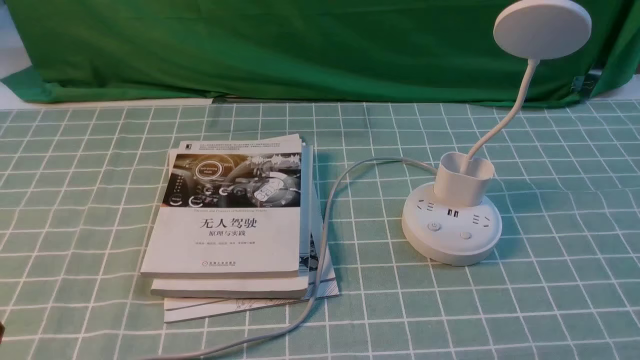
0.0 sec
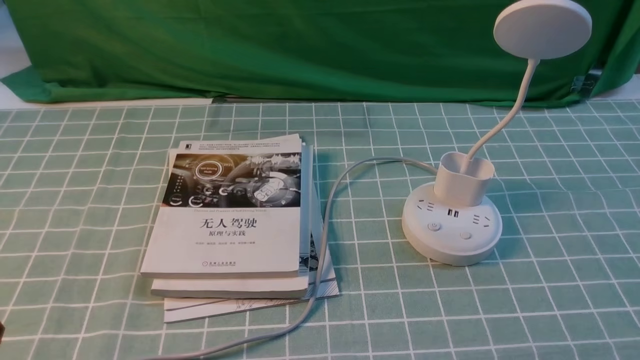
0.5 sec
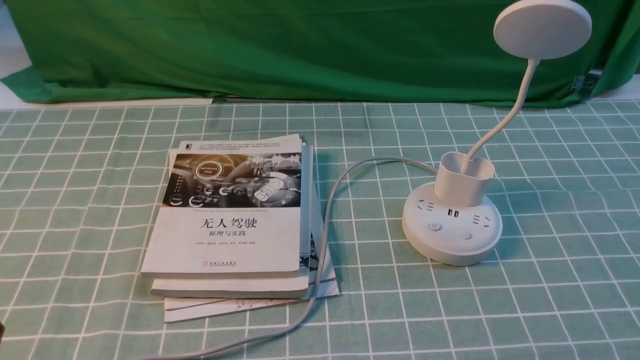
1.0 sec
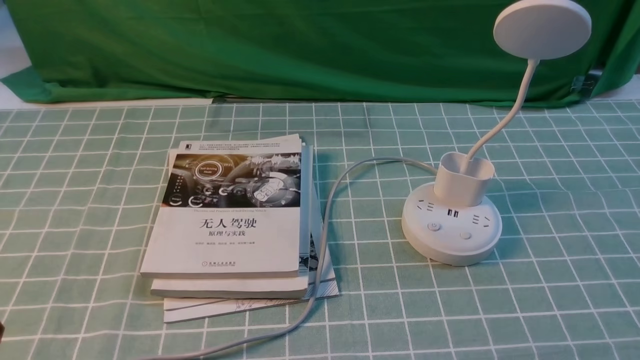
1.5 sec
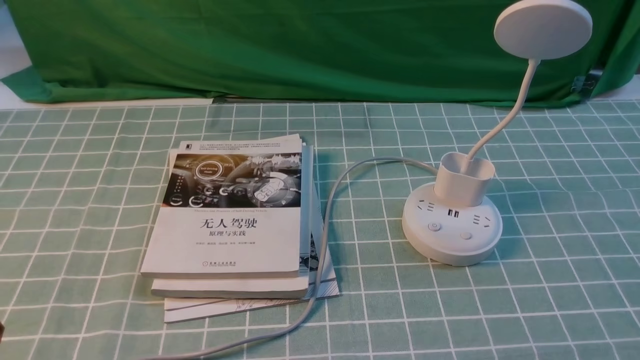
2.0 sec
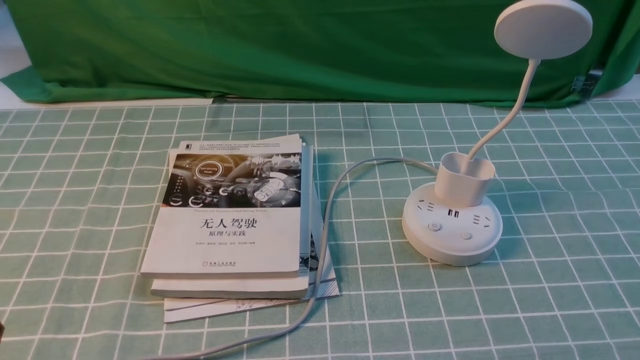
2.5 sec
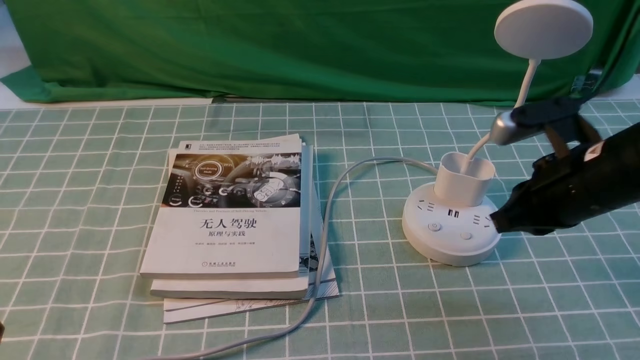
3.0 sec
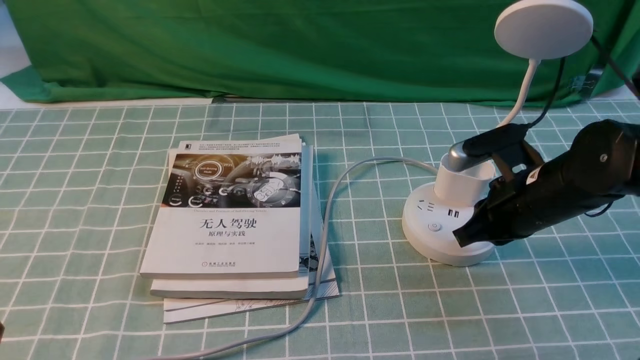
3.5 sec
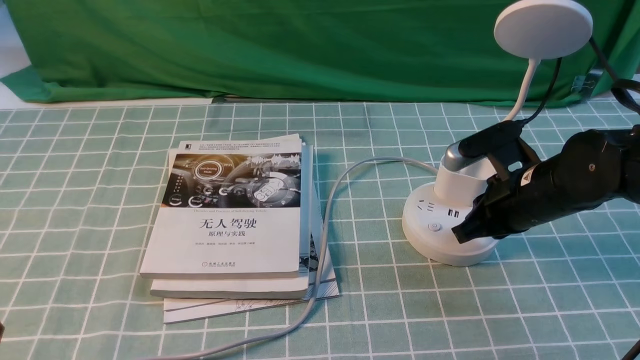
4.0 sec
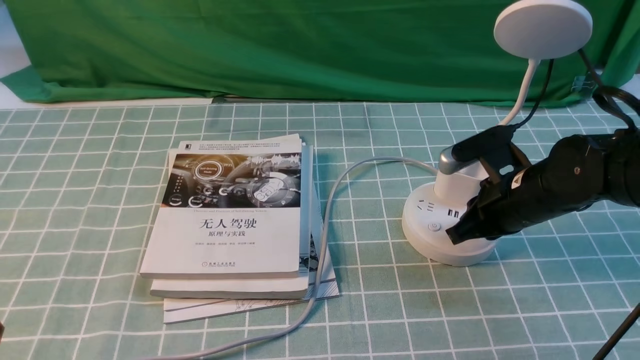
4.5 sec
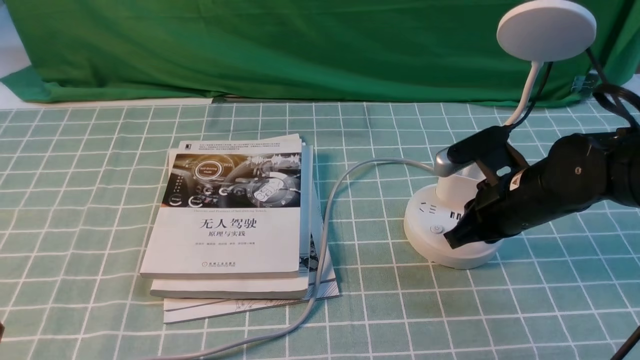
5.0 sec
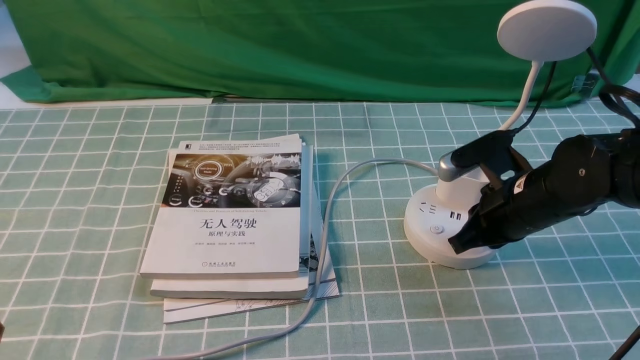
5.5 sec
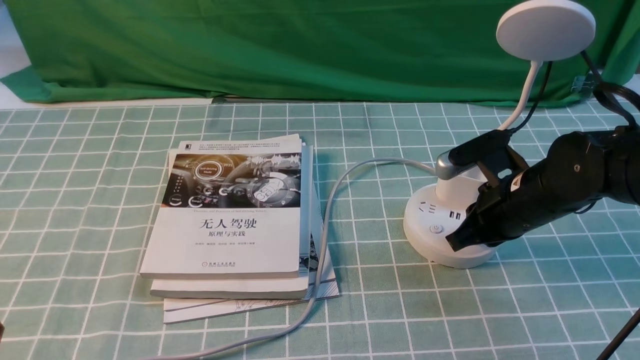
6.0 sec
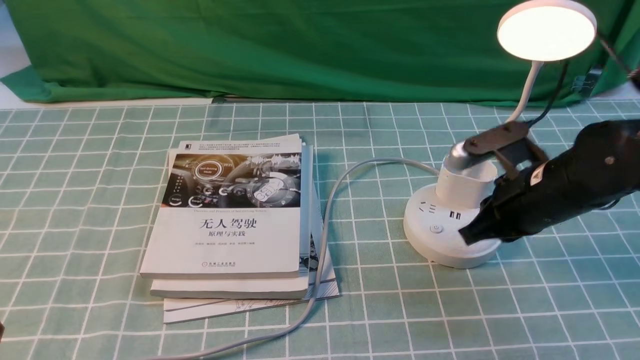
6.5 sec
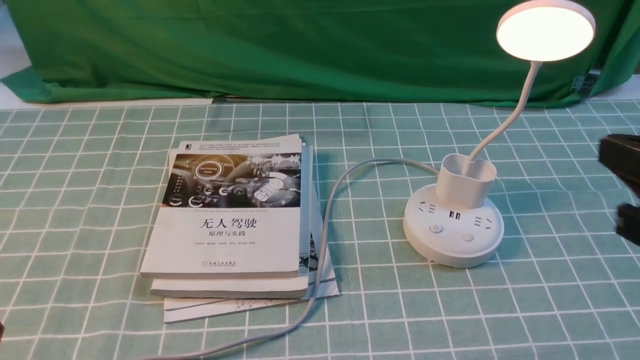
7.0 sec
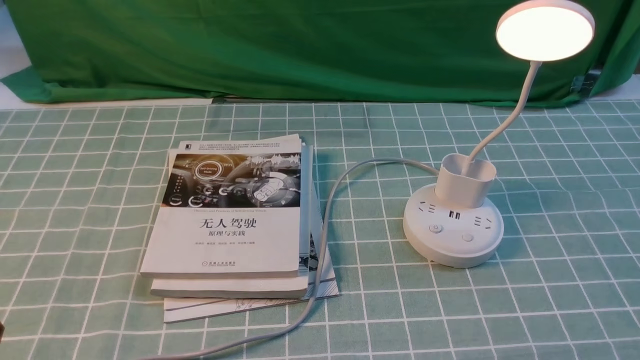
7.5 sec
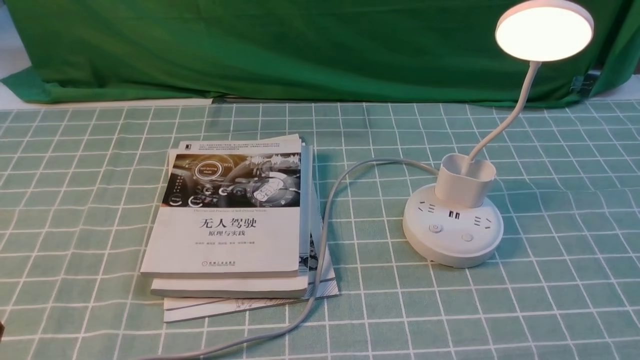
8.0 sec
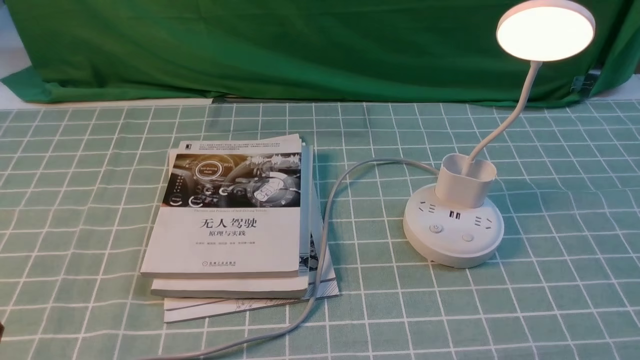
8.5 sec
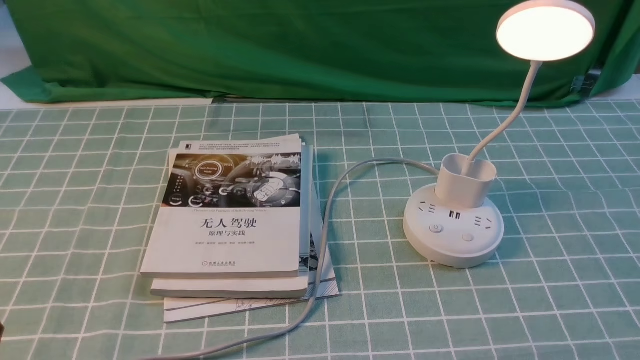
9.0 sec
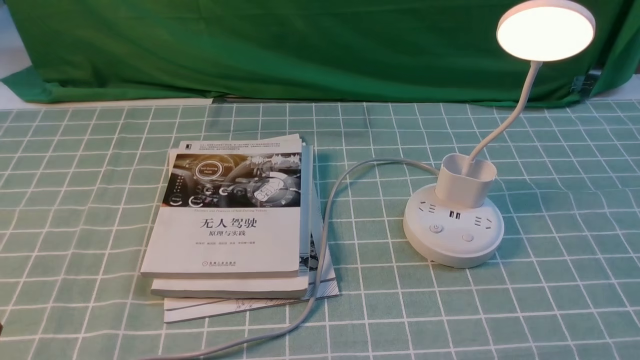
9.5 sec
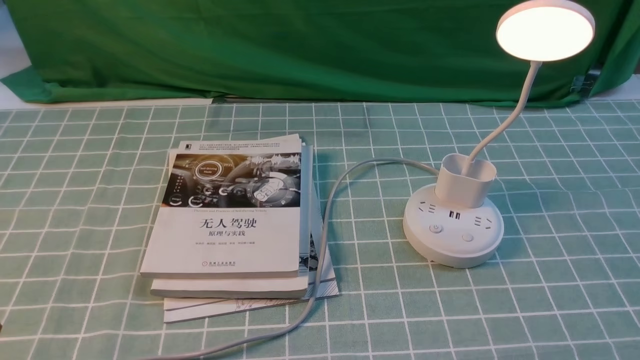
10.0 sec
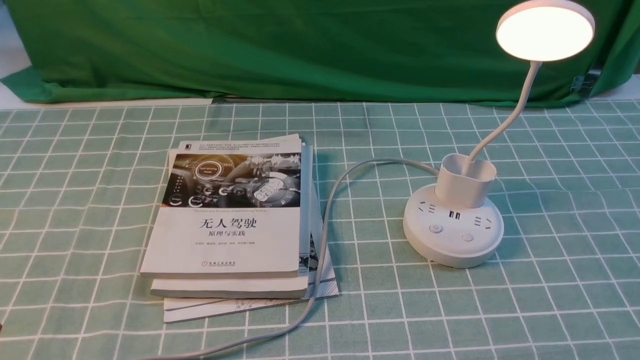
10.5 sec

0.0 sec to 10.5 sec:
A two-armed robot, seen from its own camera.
Step, 0.0 sec to 6.5 sec: use the right arm to press the button switch on the lamp holder.
2.0 sec to 4.0 sec: The right gripper travels forward and to the left by approximately 30 cm, and closes up.
4.0 sec to 6.5 sec: The grippers make only small movements.
6.5 sec to 8.5 sec: The right gripper is displaced backward and to the right by some 30 cm, and opens up.

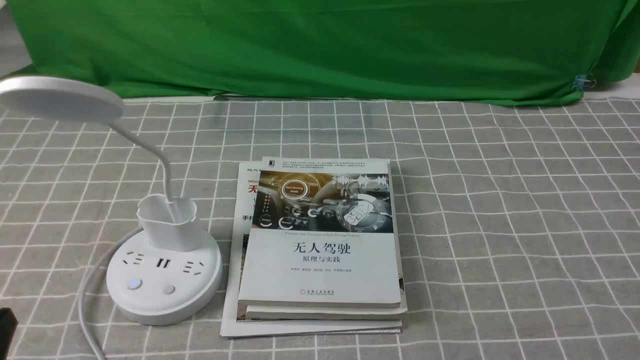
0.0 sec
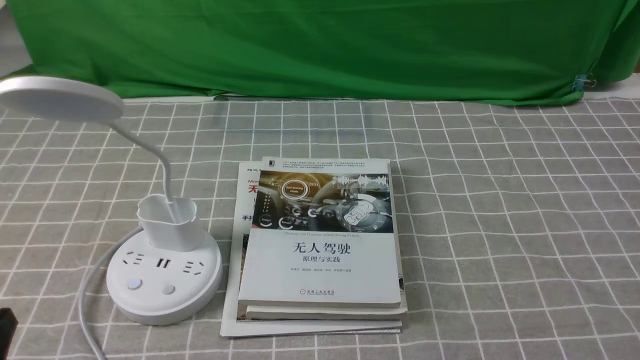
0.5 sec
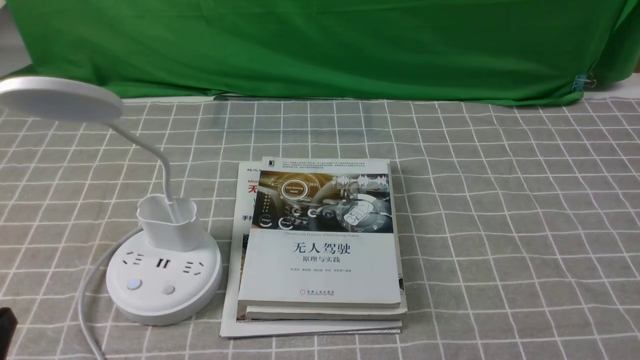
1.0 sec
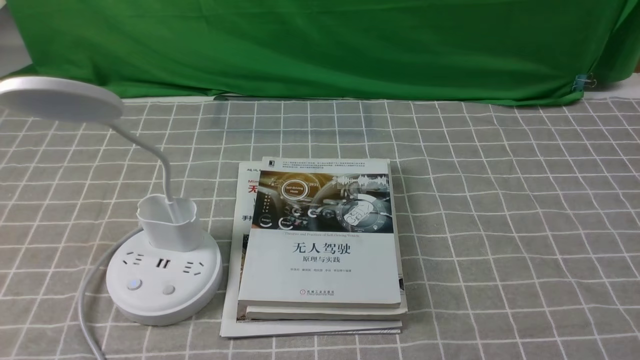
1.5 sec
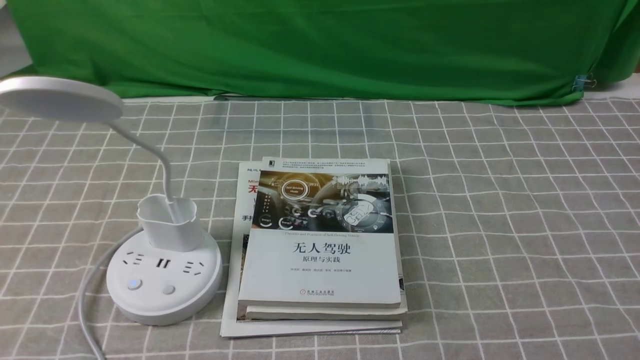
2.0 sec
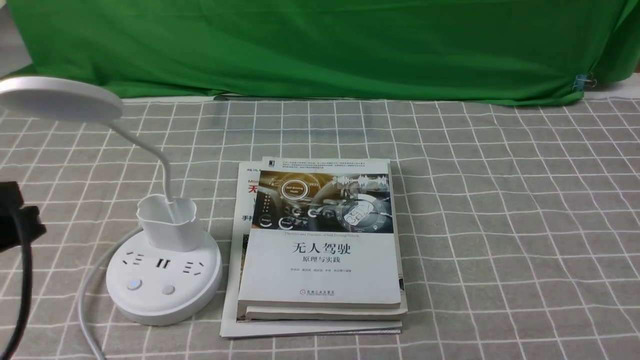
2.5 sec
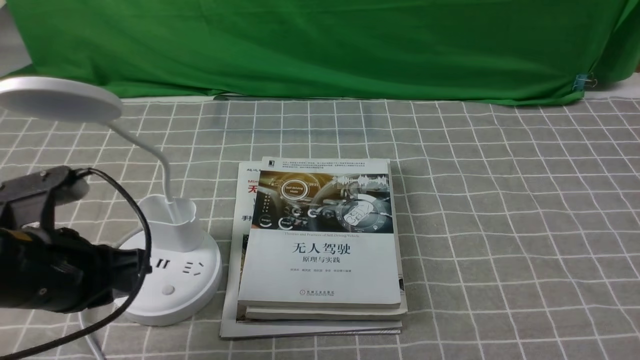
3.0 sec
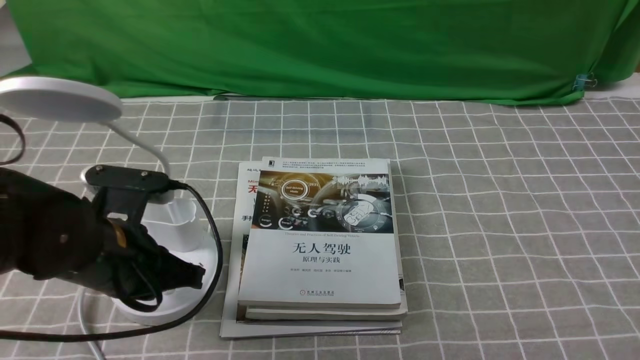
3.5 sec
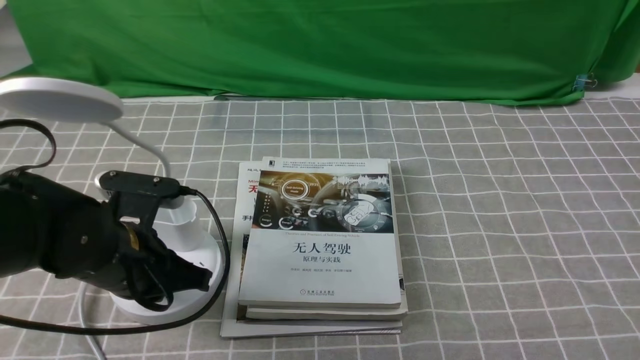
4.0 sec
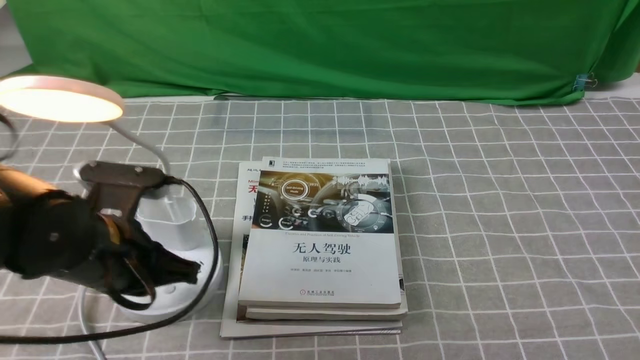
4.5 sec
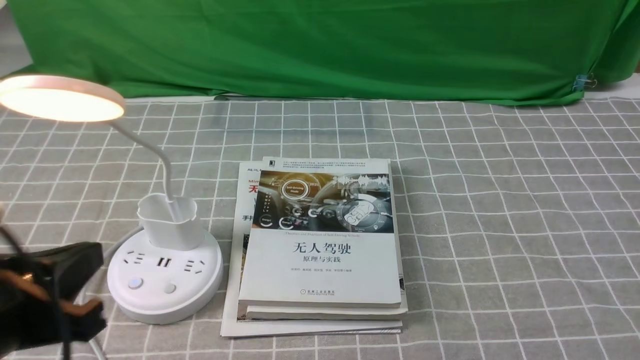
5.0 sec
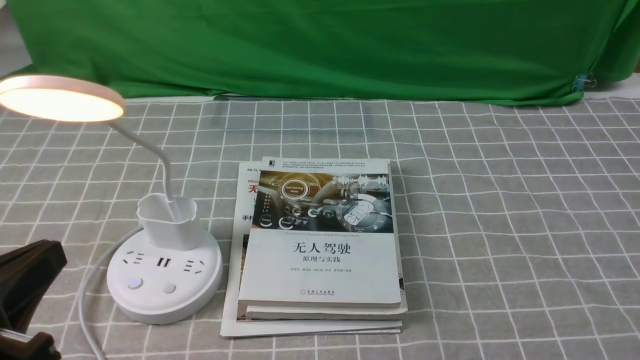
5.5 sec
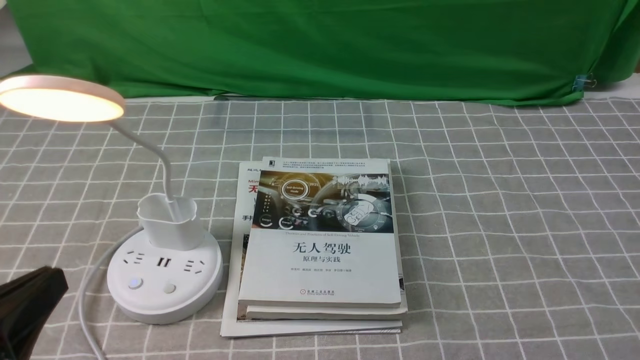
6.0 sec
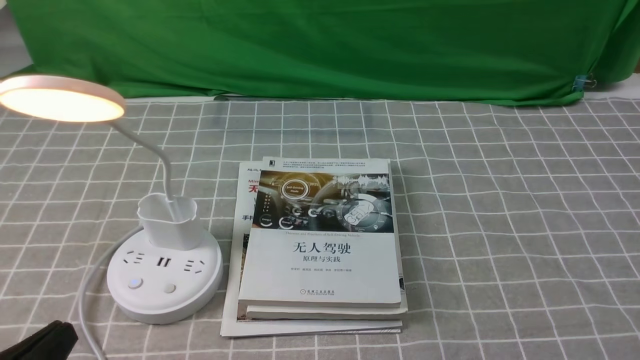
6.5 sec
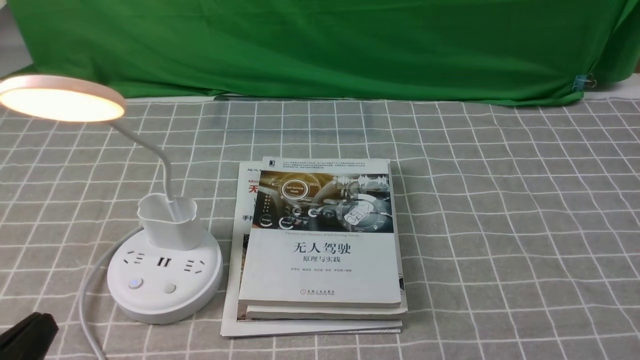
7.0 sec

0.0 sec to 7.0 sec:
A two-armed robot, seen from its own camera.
Step, 0.0 sec to 4.5 sec: use the left arm to press the button switch on the lamp holder.
2.0 sec to 3.5 sec: The left gripper shifts approximately 20 cm forward and downward.
3.5 sec to 5.0 sec: The left gripper heads backward and upward, covering some 10 cm.
5.0 sec to 7.0 sec: The left gripper moves backward and downward, approximately 10 cm, and opens up.
